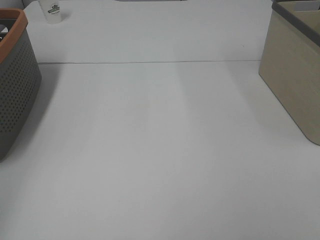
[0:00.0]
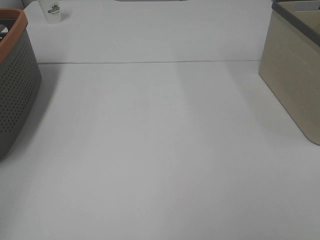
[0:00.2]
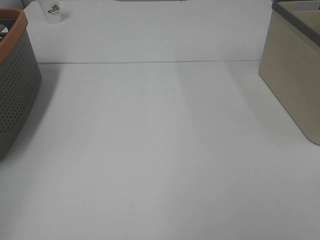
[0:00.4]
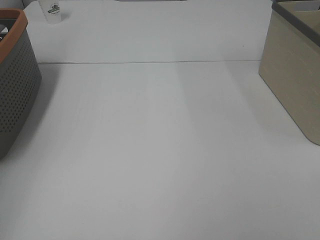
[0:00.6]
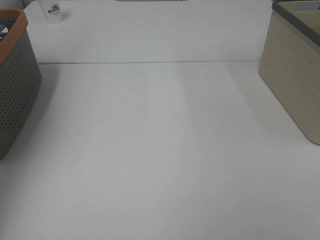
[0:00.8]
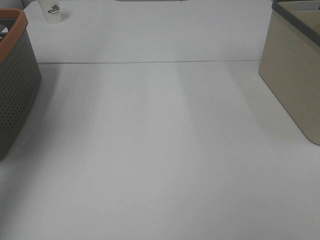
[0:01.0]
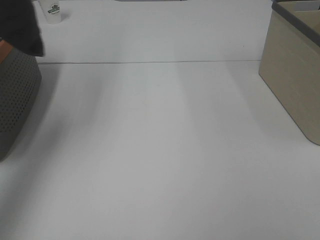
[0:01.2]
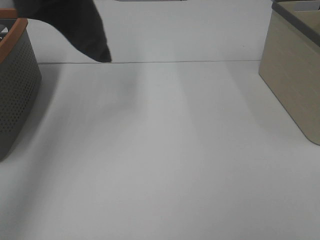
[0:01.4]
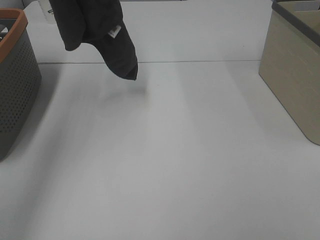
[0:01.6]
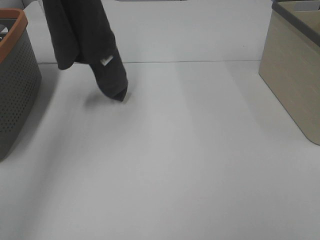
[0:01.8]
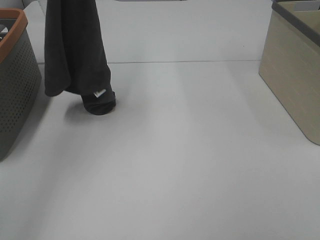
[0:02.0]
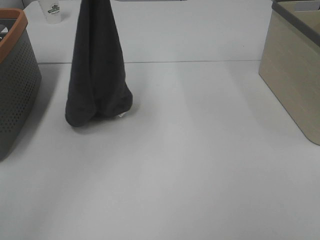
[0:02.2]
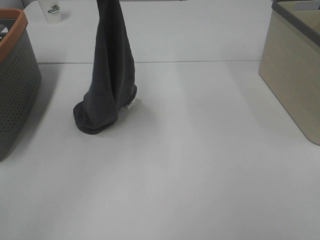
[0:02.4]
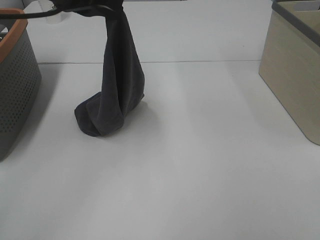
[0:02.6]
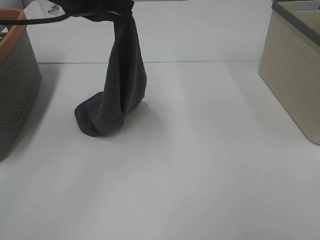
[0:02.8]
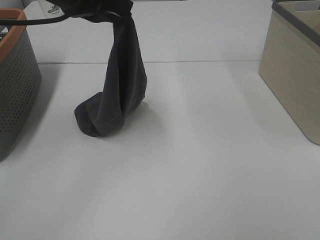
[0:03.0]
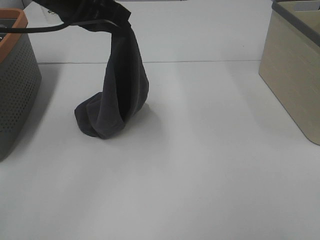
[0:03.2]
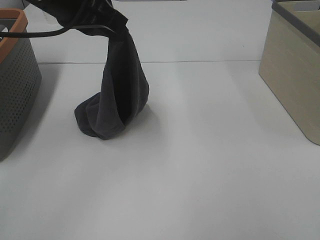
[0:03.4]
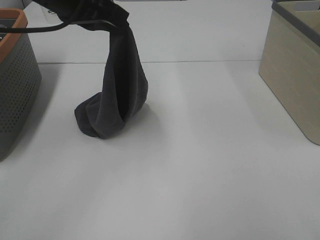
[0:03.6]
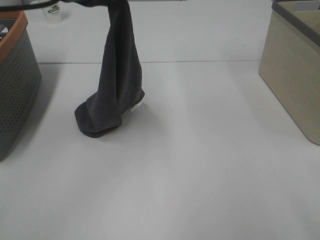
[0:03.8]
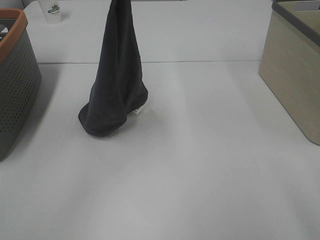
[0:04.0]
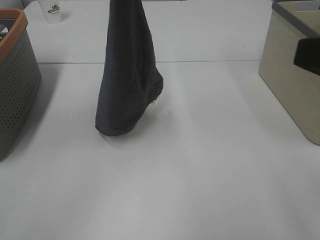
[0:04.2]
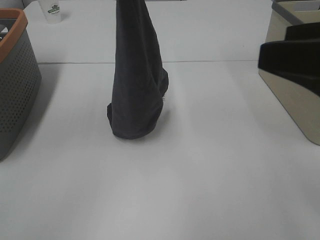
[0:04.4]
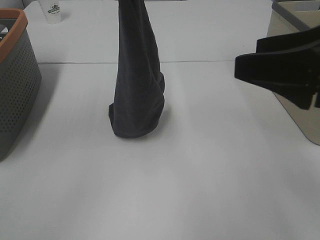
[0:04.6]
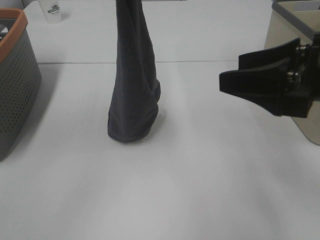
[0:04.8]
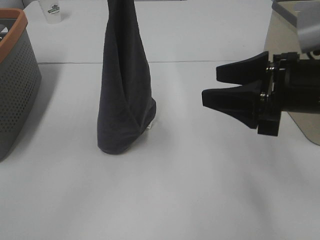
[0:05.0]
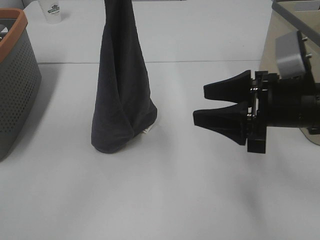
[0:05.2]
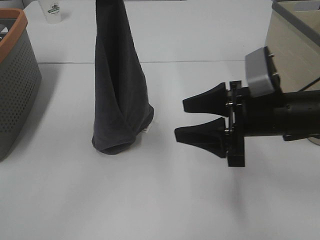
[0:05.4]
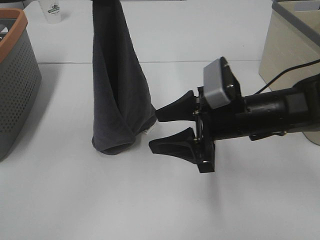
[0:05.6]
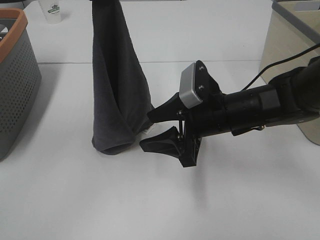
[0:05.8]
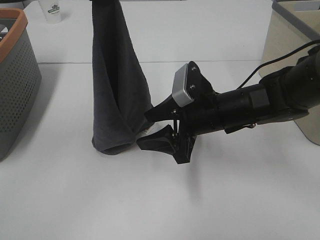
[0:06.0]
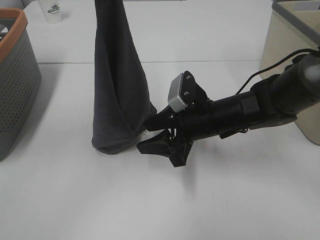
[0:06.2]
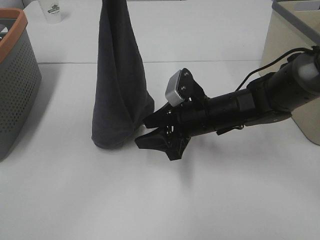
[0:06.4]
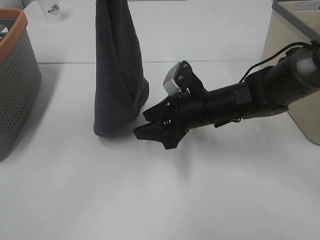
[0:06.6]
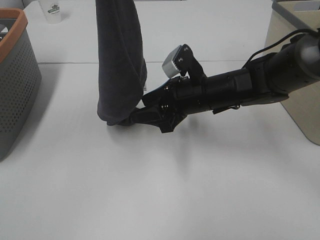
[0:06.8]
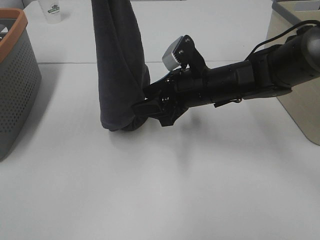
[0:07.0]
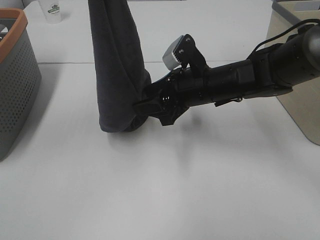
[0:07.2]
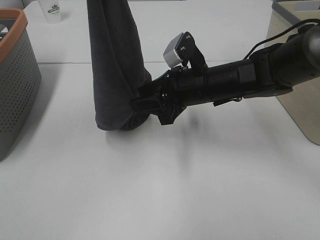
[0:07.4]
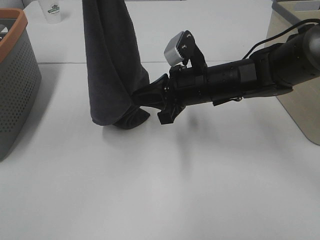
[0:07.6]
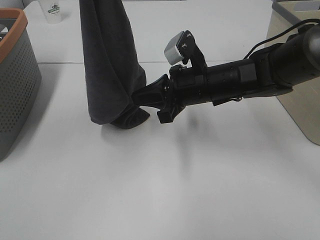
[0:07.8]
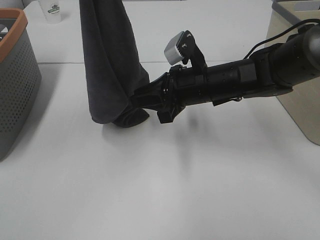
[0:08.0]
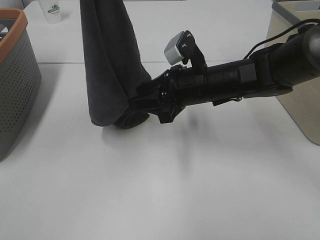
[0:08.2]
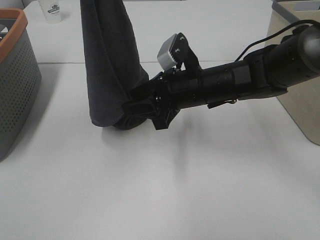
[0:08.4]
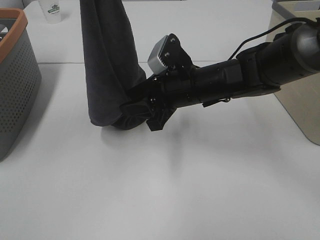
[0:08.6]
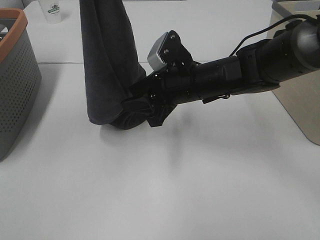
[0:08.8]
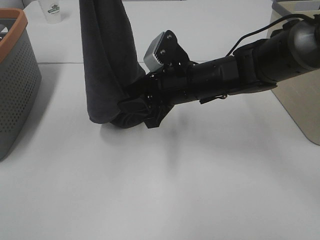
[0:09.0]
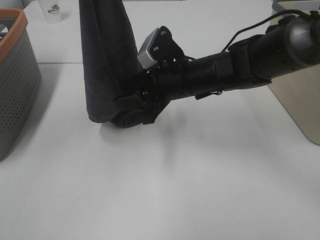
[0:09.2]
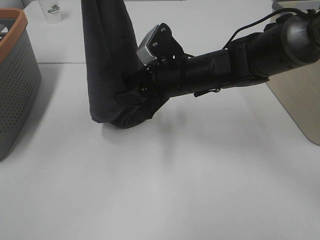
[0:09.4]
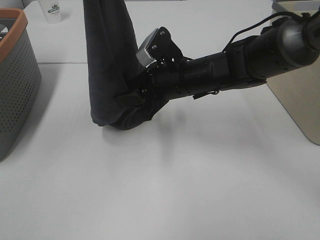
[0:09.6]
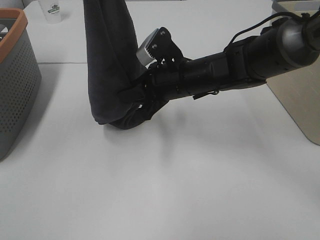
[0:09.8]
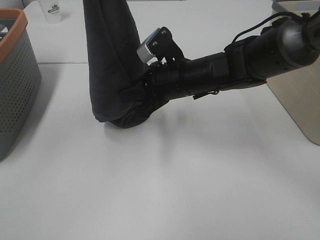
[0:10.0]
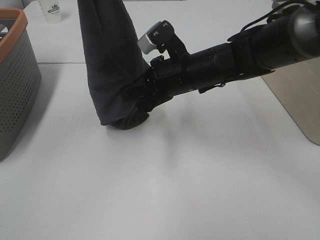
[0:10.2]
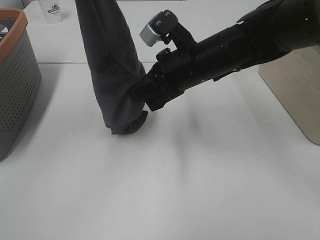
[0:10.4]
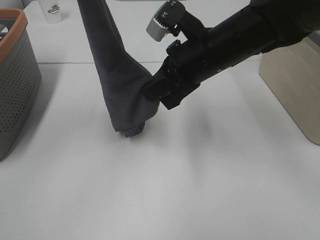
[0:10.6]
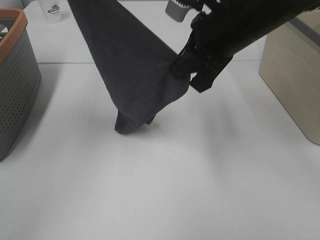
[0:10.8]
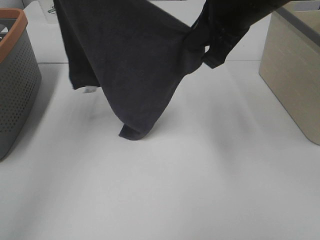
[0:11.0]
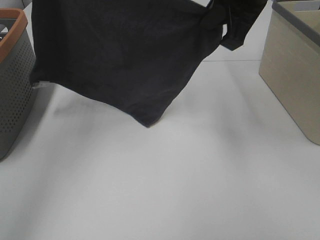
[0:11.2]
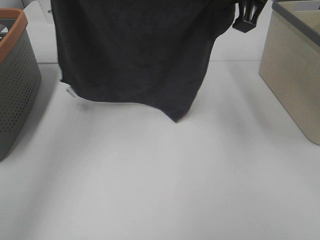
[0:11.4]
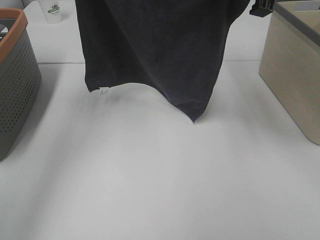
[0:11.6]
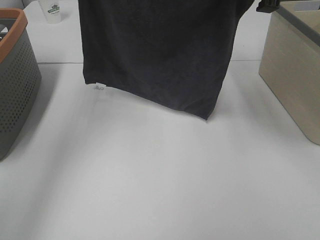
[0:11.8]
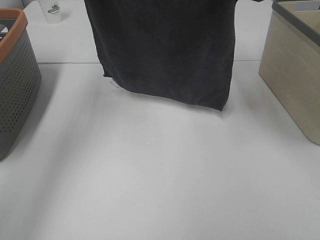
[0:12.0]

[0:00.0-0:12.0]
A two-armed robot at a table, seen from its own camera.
Task of the whole recording: Remove the towel and place it.
Step, 0:02.2 to 0:08.2: Right hand: grab a corner of the grey towel and straighten it.
Step, 0:08.4 to 0:10.6: Right hand: spread the grey towel flat on the table.
0:00.0 to 0:01.6: The left gripper goes approximately 20 cm to the right.
0:01.6 to 0:03.0: The left gripper is displaced downward and to the right by about 20 cm.
0:03.0 to 0:04.4: The left gripper goes roughly 5 cm upward. The right gripper heads forward and to the left, covering approximately 15 cm.
0:04.4 to 0:06.0: The right gripper is displaced downward, forward and to the left by about 25 cm.
0:06.0 to 0:07.6: The right gripper closes its fingers; the left gripper heads upward, covering some 5 cm.
0:07.6 to 0:09.0: The right gripper opens its fingers.
0:09.0 to 0:10.4: The right gripper closes its fingers.
0:10.4 to 0:12.0: The left gripper heads forward and downward, covering about 10 cm. Meanwhile the right gripper is displaced upward and to the right by about 20 cm.

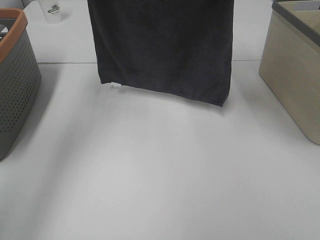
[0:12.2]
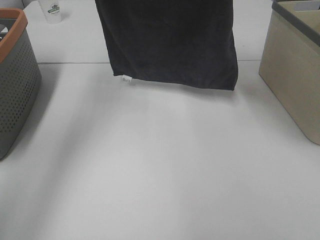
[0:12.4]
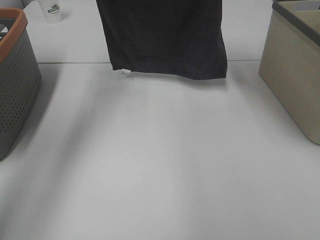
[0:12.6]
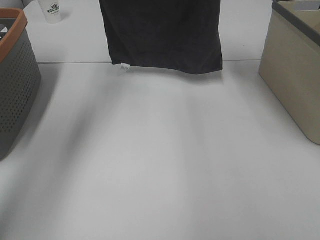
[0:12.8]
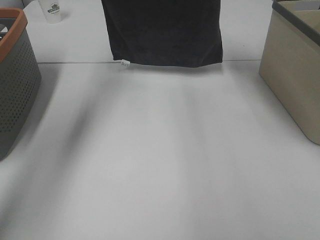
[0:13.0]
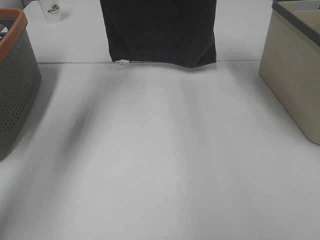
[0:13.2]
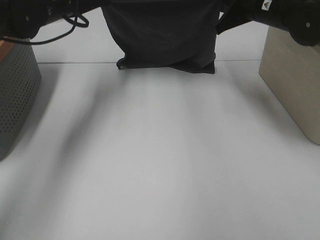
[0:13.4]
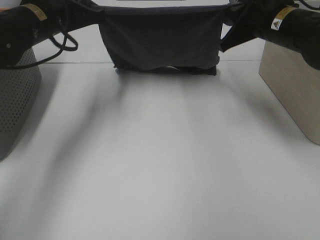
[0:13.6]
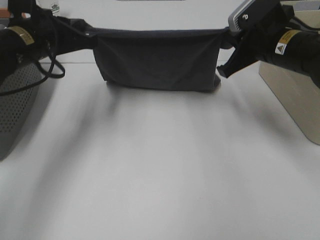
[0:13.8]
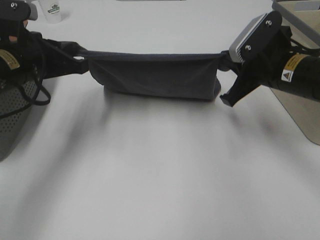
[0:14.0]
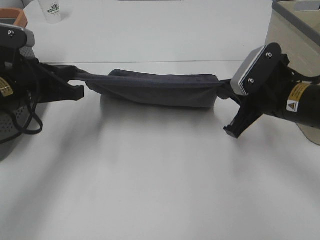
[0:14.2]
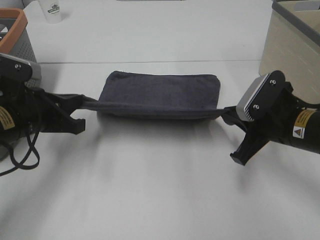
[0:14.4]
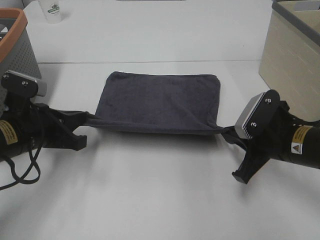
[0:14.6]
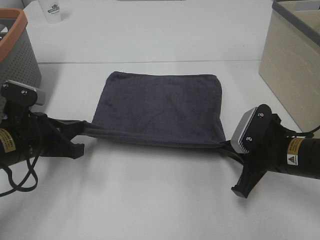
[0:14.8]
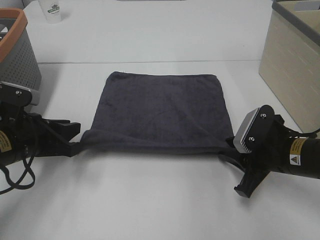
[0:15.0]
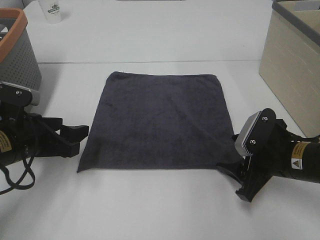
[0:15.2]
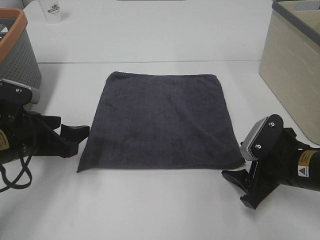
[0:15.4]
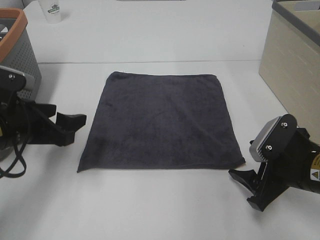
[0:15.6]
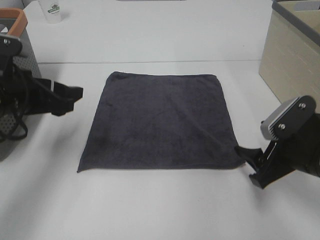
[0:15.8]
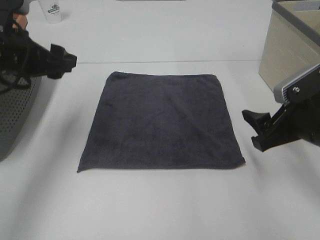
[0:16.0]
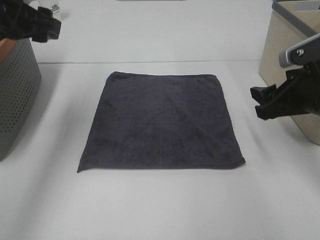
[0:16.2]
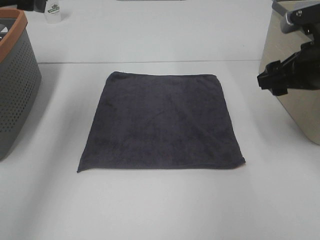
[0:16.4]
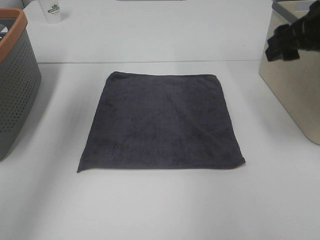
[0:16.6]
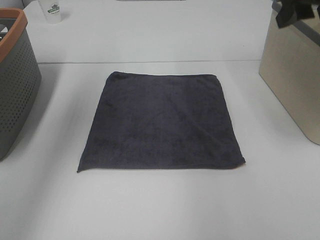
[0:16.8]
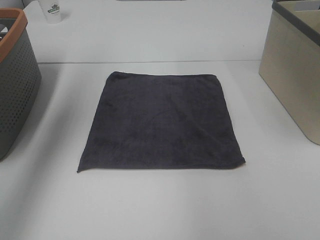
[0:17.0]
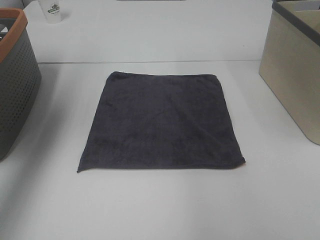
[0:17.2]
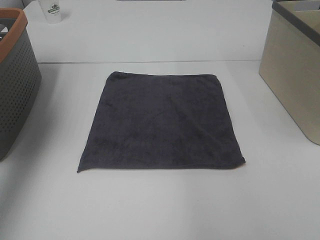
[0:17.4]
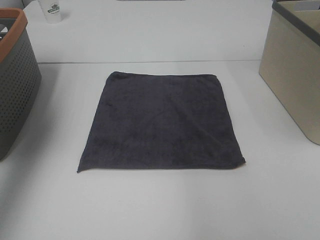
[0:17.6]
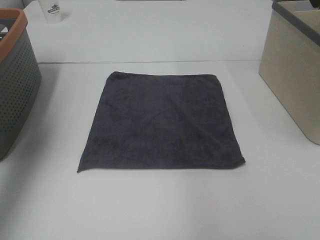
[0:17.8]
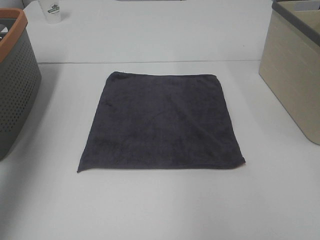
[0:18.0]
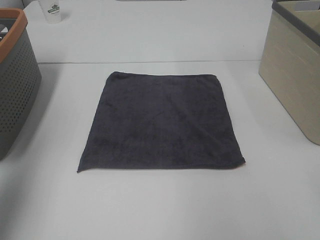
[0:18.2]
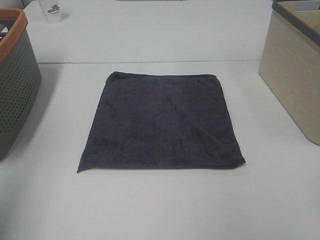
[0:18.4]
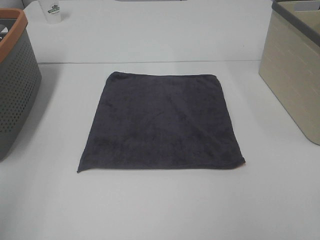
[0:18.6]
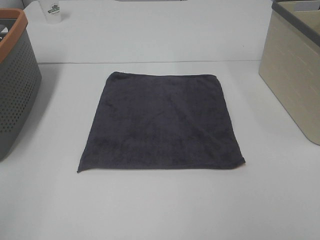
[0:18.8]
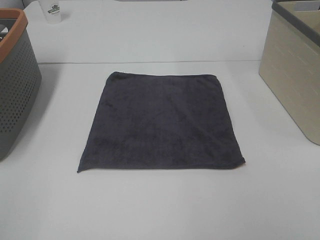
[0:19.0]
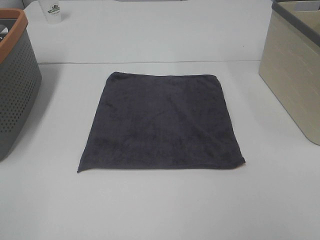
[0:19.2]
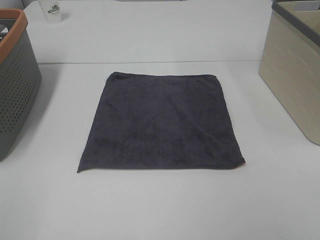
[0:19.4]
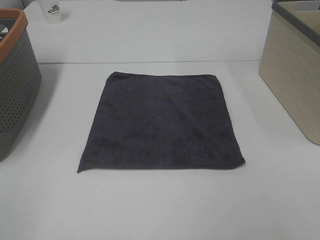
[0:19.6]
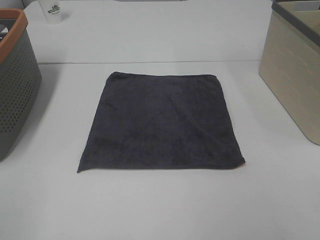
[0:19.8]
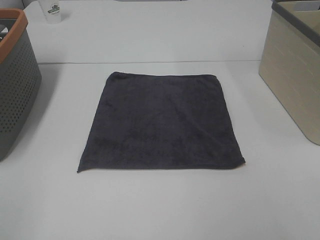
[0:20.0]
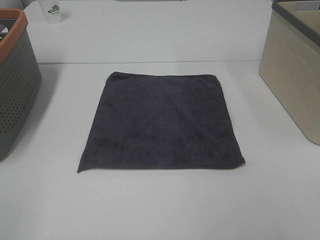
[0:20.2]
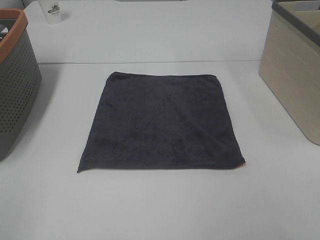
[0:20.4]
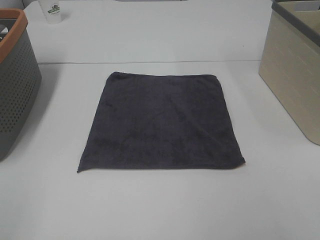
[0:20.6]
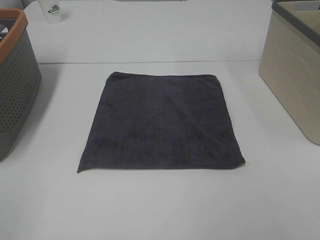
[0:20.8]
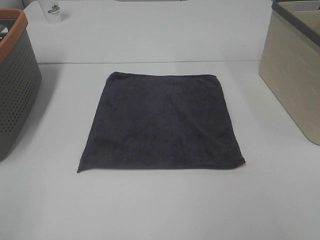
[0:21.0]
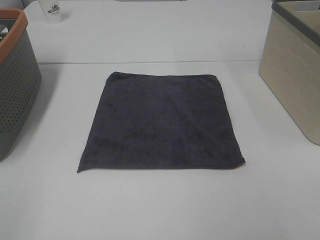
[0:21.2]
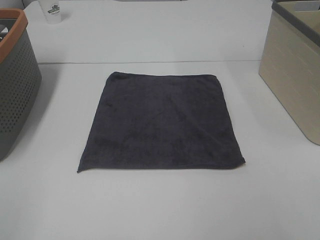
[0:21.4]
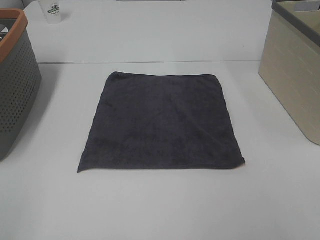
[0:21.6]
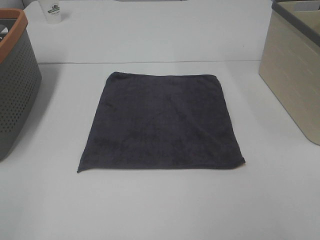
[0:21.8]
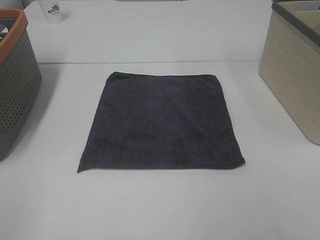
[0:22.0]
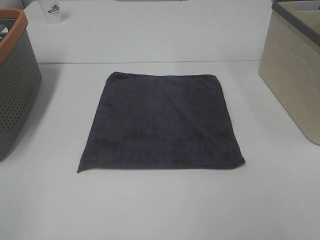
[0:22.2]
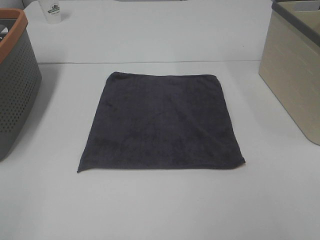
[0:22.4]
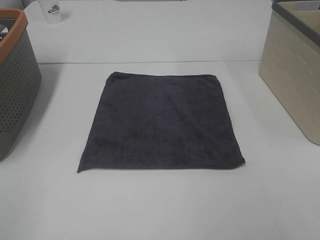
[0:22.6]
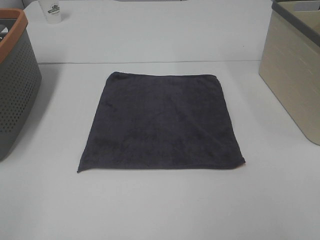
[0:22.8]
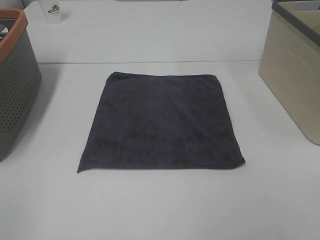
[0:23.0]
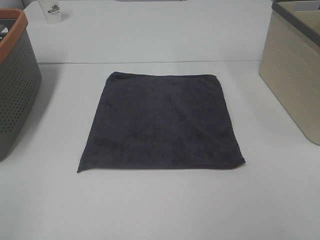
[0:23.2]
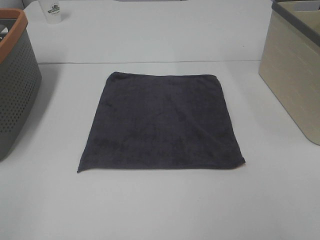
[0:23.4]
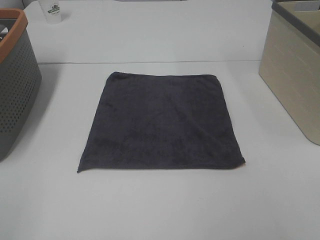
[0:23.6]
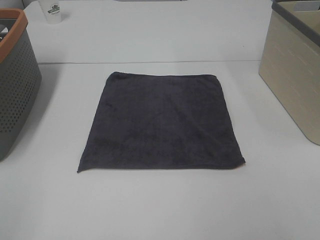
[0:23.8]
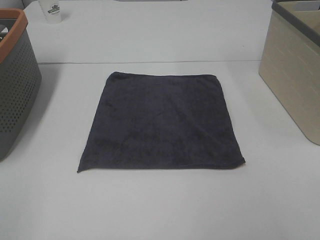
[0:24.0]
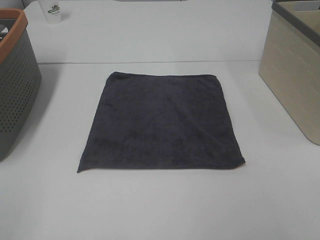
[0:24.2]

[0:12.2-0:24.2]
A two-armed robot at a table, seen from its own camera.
Task of the whole recording: Remove the towel and place it.
0:12.2 to 0:13.8: The grippers both shift downward by approximately 15 cm.
0:13.8 to 0:15.2: Both grippers move downward and backward, some 15 cm. The left gripper opens, while the right gripper opens.
0:15.2 to 0:16.6: Both grippers travel together upward, about 25 cm.
0:16.6 to 0:18.2: The right gripper is displaced backward and upward by about 15 cm. The left gripper travels backward and to the left by approximately 20 cm.
0:18.2 to 0:19.8: The left gripper moves backward and downward, about 20 cm.
0:19.8 to 0:24.2: Neither gripper changes place.
